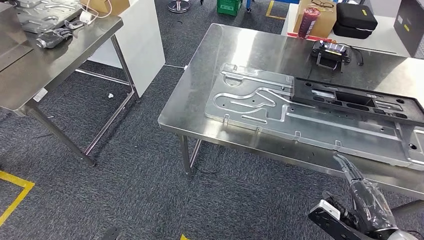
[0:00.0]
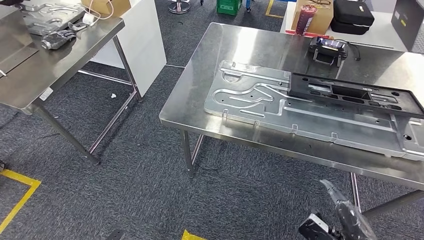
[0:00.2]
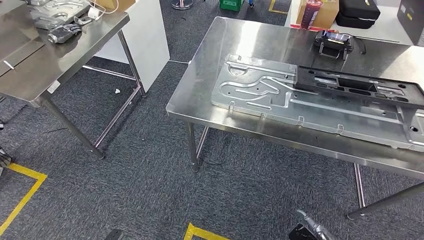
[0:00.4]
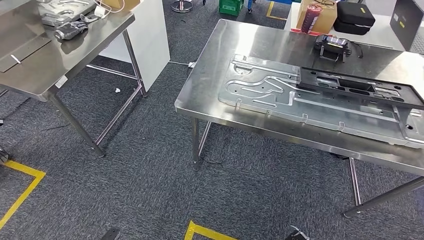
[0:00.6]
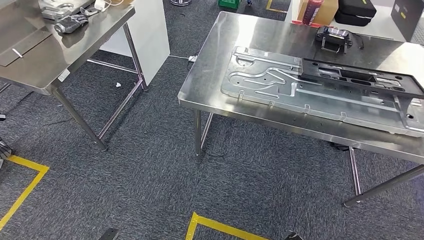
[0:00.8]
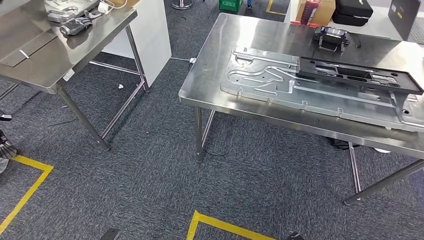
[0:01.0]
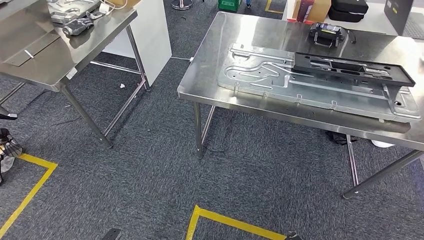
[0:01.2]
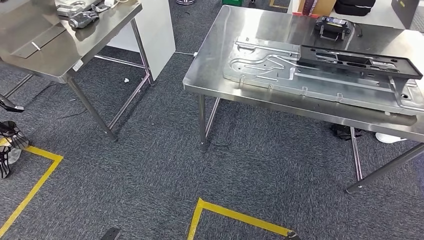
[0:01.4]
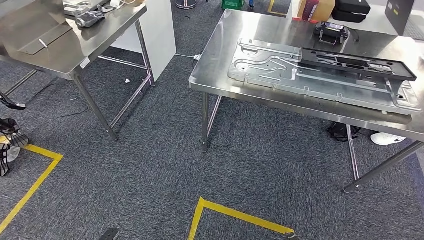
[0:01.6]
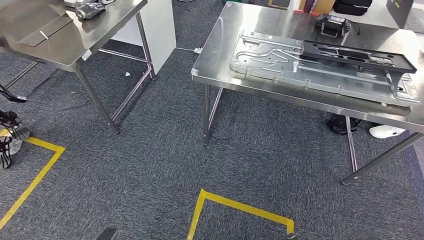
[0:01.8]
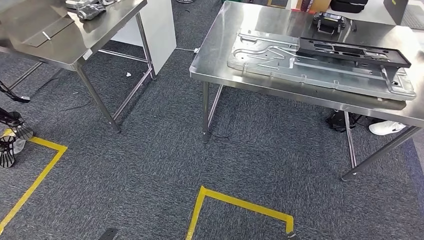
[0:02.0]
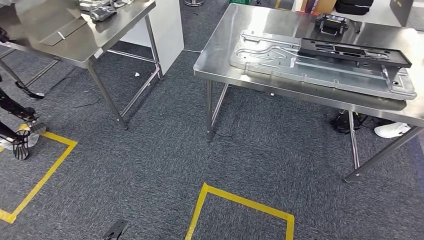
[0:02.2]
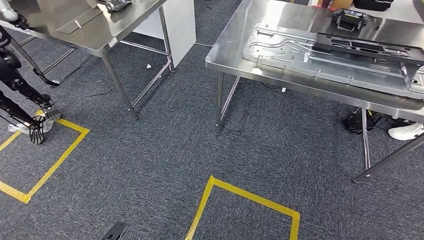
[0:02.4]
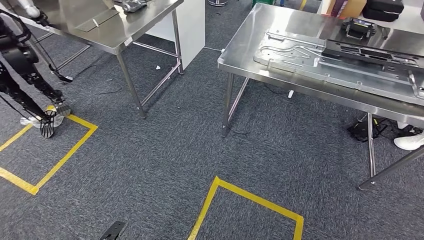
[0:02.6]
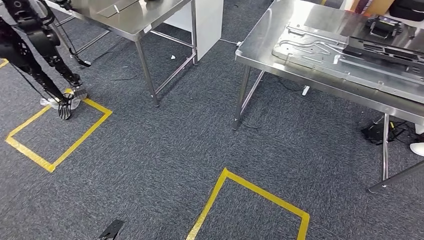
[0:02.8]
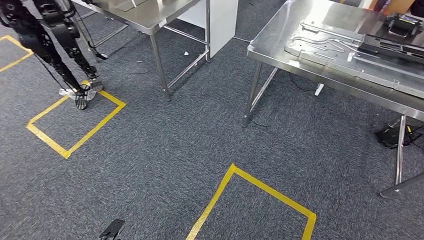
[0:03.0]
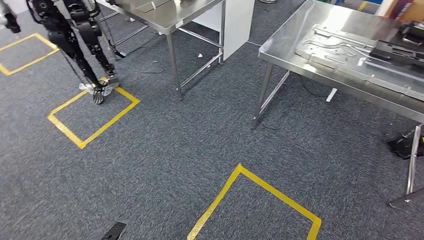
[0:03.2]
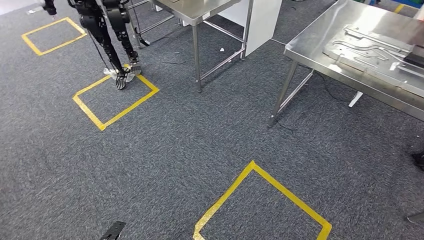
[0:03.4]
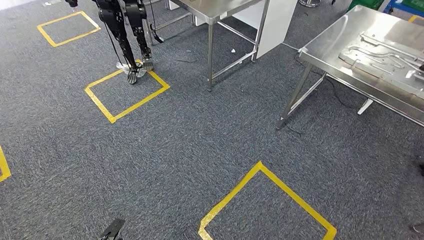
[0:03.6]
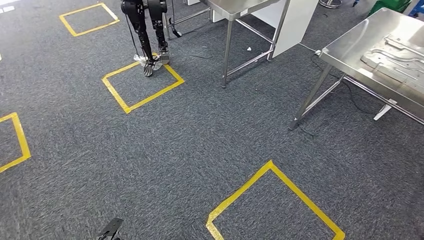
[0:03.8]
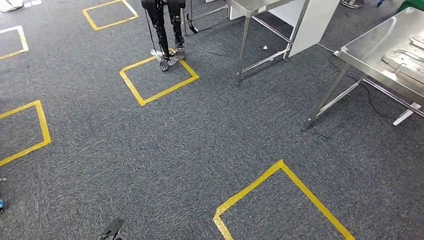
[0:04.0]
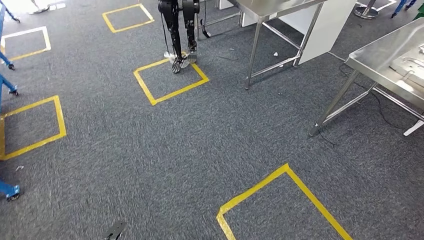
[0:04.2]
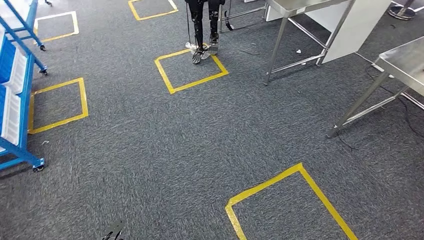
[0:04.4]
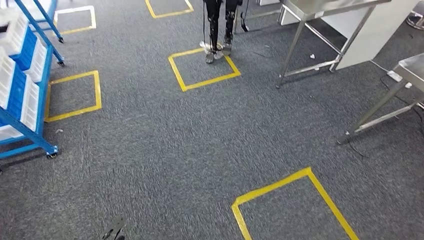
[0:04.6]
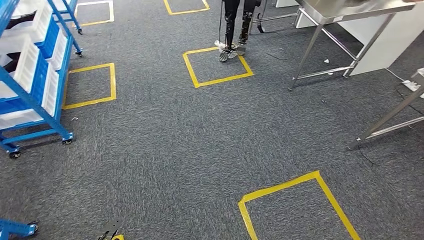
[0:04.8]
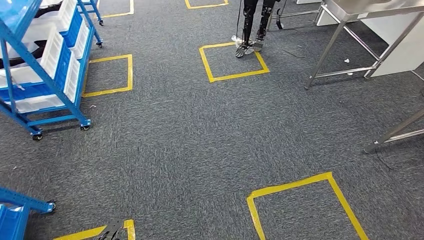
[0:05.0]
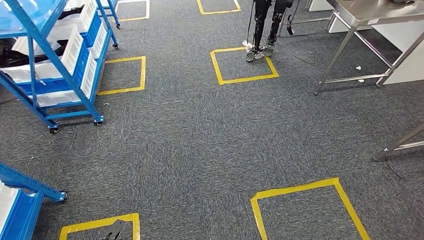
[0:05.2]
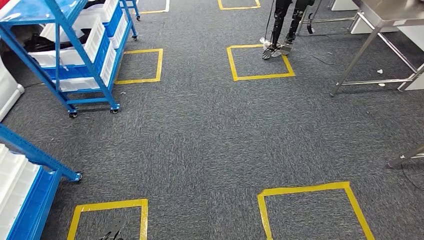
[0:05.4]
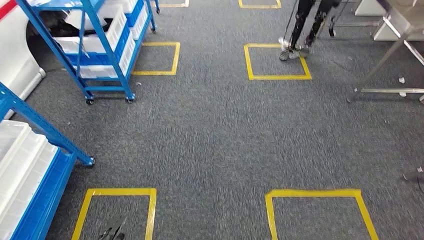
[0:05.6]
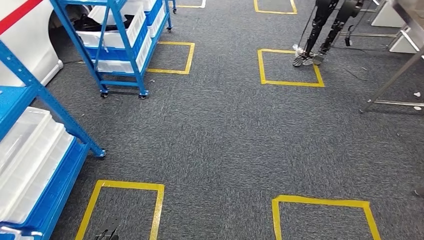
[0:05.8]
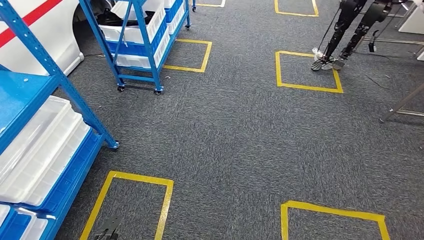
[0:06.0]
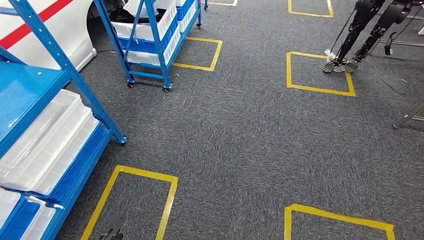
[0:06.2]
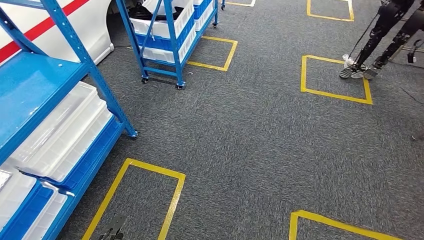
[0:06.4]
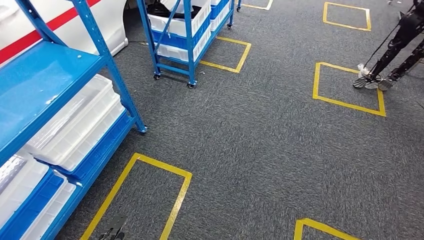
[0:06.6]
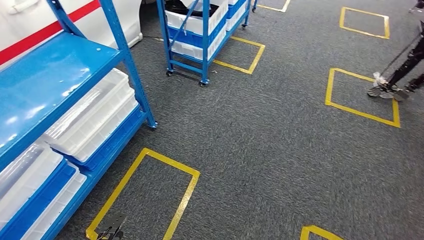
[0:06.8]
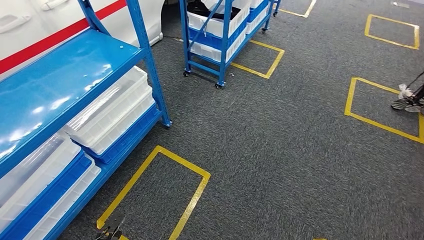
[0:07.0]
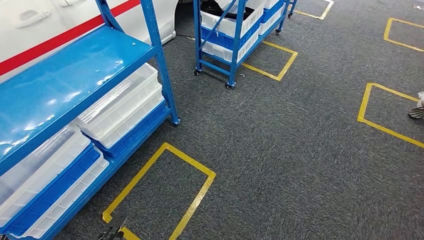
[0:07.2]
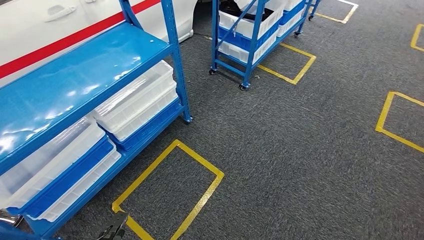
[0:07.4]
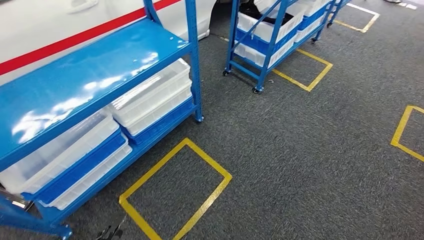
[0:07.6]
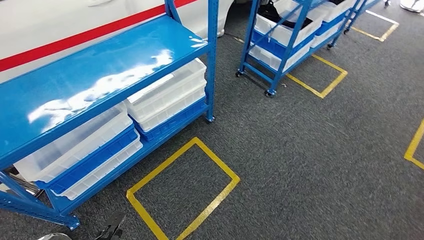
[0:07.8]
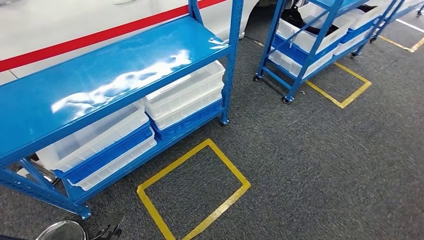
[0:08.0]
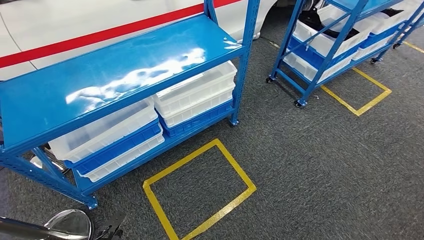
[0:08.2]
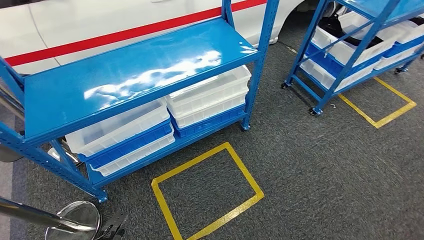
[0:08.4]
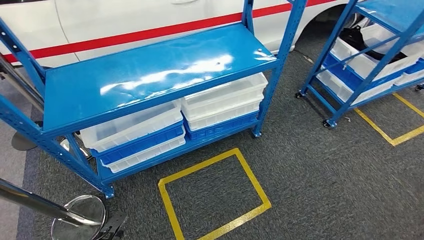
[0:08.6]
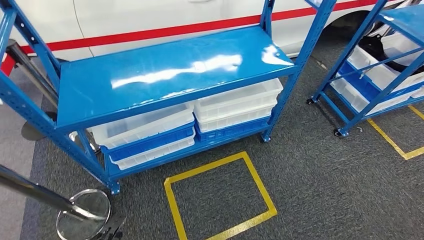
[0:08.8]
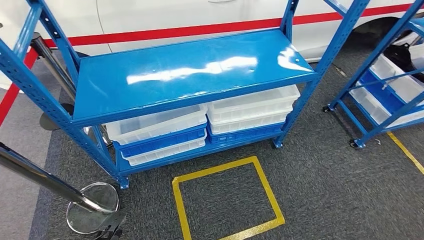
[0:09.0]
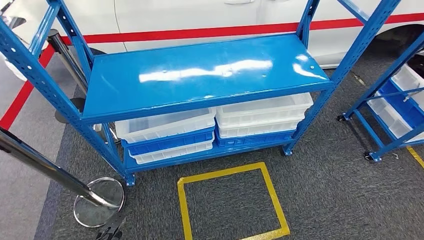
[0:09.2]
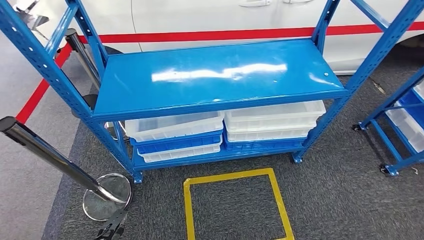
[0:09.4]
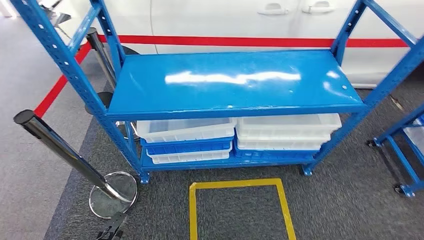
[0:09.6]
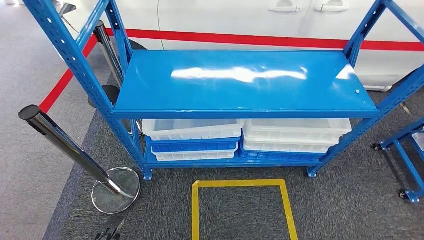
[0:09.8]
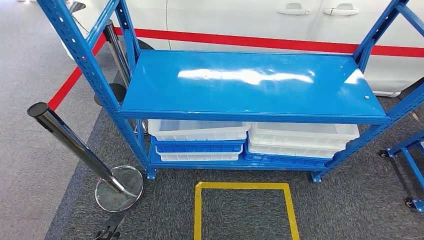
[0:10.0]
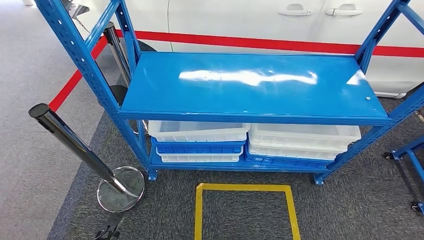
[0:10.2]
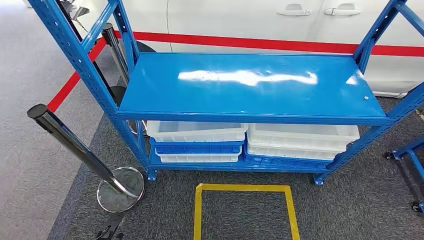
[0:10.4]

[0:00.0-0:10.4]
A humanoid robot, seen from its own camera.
Step, 0:00.0 to 0:10.2: Return to the initial position at the shelf.

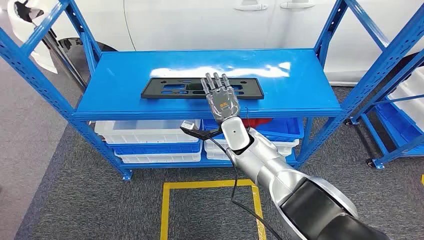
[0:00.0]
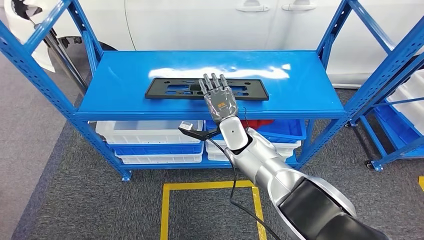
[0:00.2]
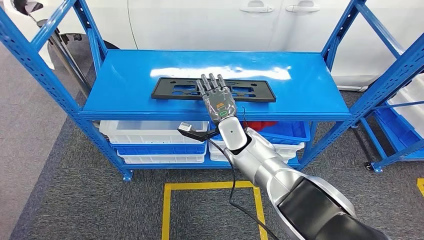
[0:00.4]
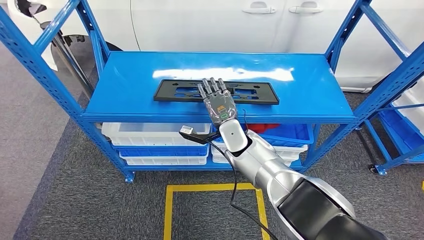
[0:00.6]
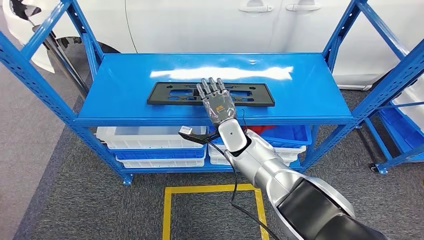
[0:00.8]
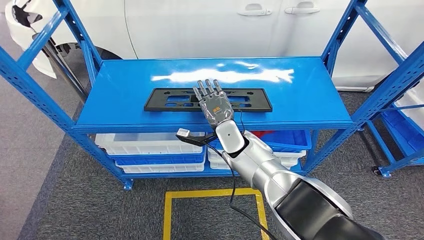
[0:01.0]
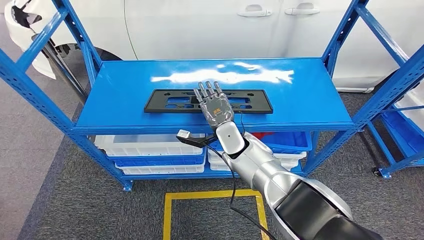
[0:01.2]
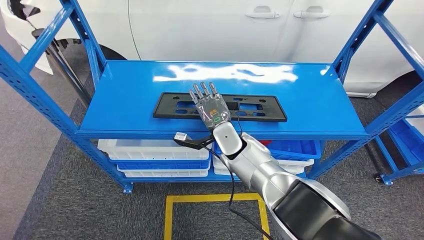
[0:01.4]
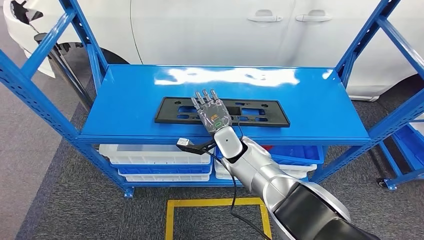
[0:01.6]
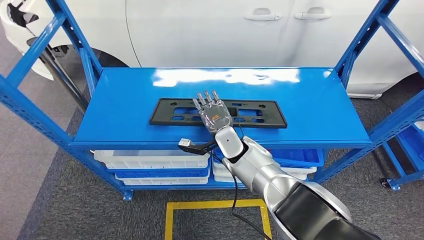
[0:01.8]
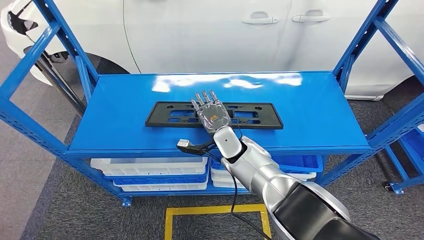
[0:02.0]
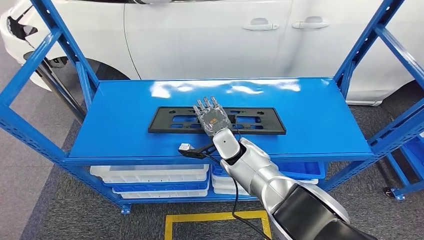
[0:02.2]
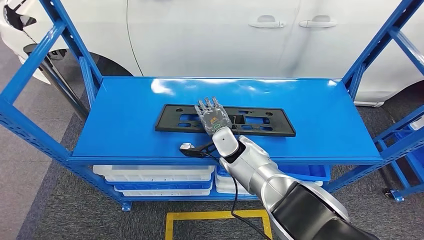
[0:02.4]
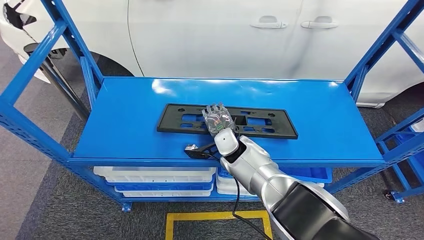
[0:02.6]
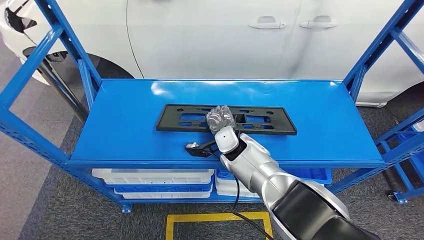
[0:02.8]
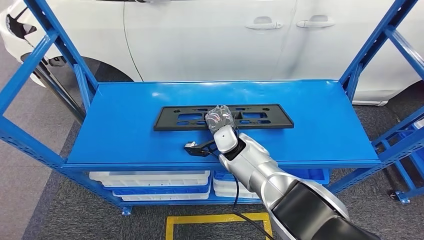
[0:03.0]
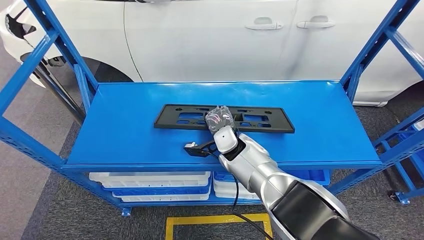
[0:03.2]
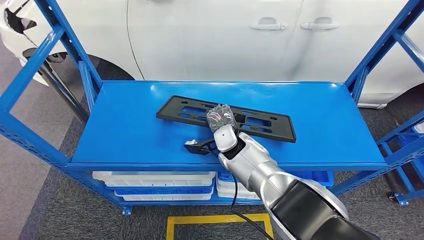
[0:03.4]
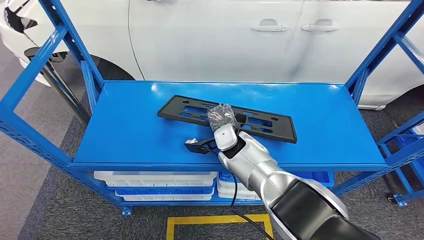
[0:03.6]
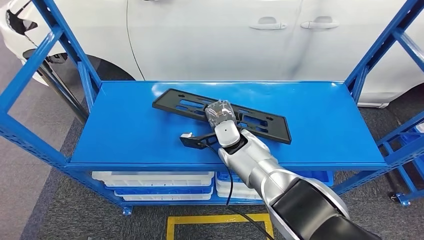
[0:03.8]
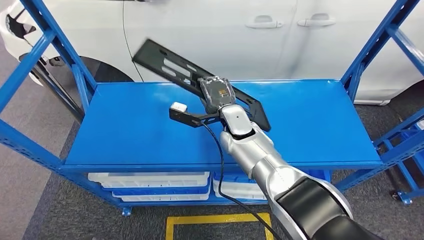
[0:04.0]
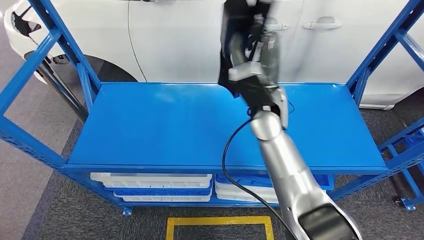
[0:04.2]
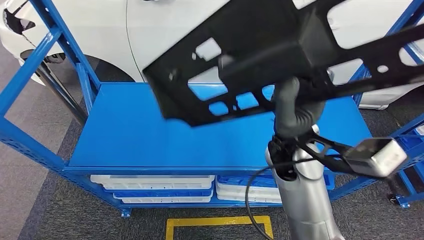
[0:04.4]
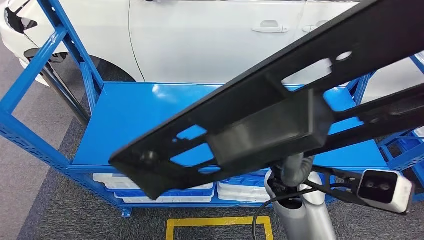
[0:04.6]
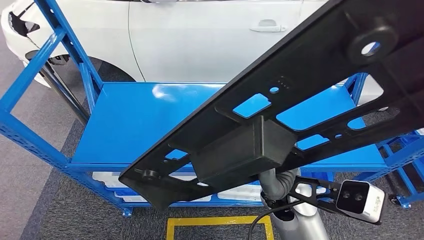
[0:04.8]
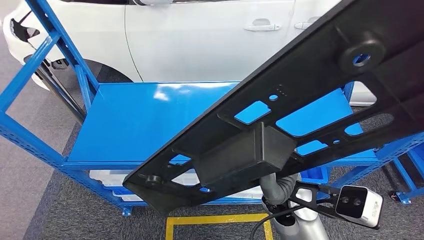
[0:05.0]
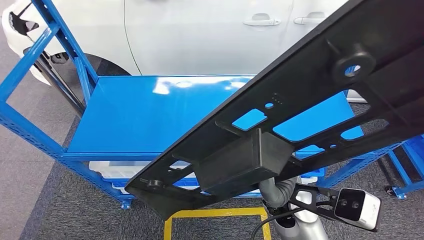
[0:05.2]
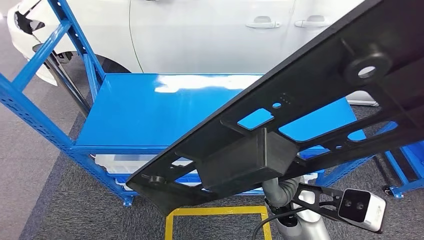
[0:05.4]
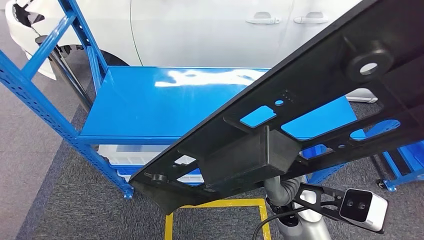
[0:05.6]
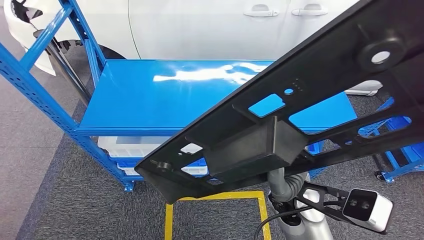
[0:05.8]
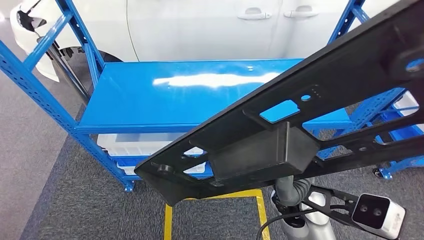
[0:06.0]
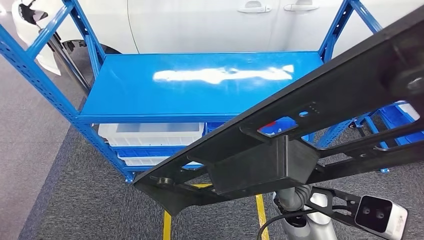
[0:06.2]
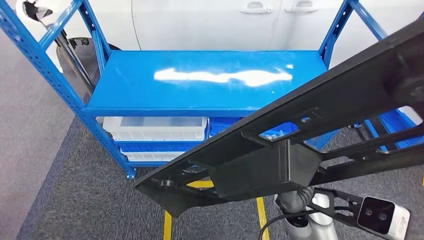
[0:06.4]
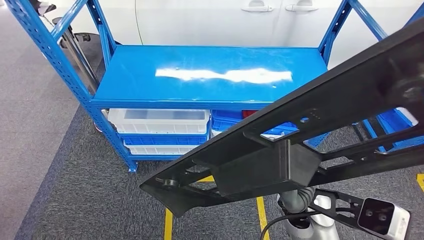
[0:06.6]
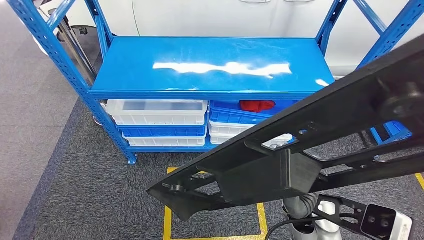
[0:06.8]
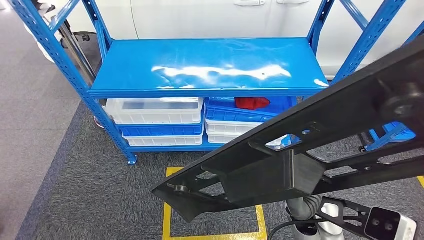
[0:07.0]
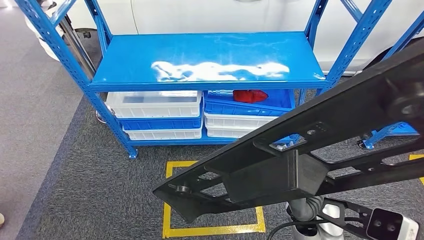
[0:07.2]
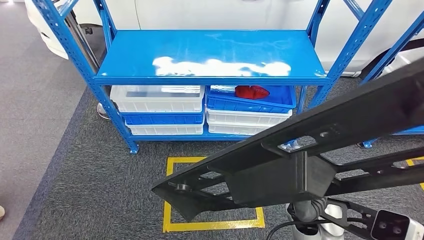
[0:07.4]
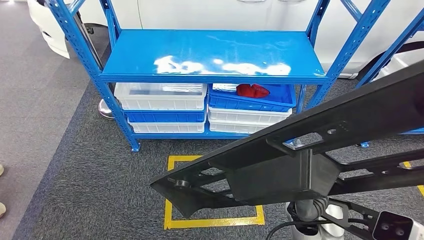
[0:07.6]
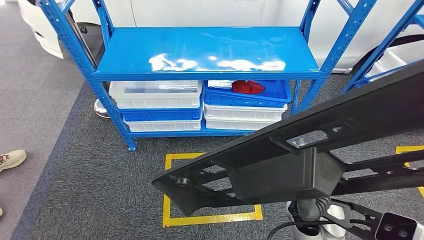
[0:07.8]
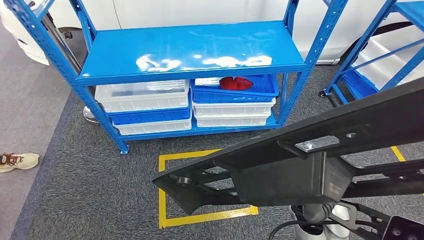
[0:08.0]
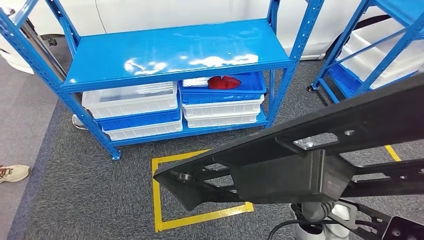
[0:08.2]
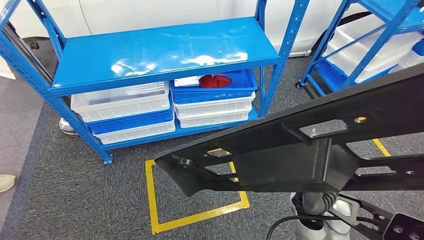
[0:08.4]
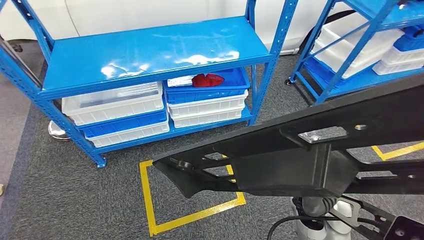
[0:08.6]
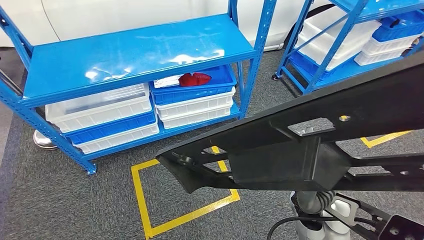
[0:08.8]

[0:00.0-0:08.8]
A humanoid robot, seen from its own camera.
Step, 0:00.0 to 0:04.6: Pick up the large material from the shelf.
